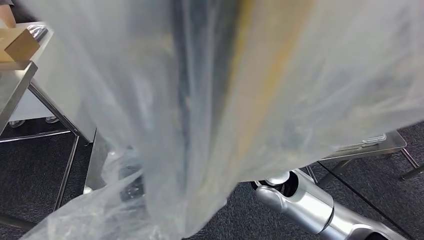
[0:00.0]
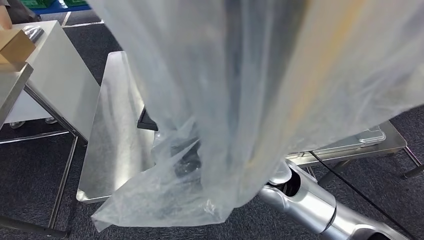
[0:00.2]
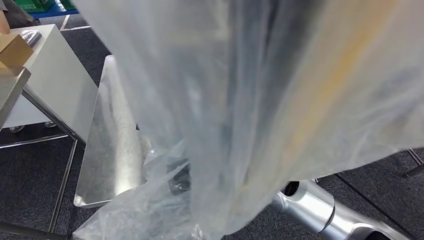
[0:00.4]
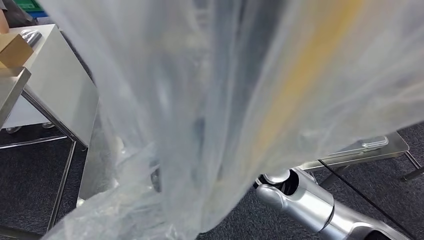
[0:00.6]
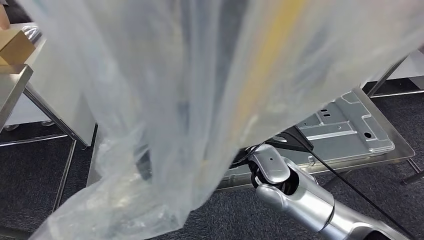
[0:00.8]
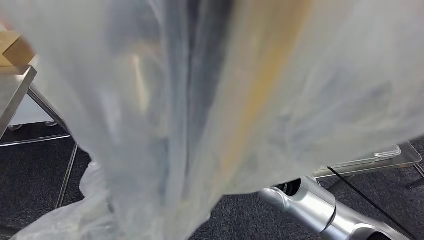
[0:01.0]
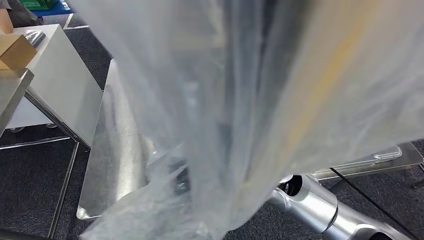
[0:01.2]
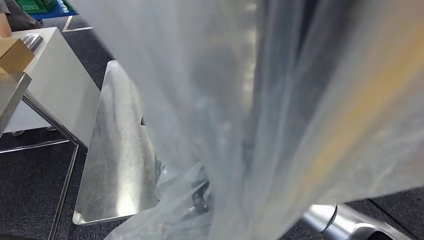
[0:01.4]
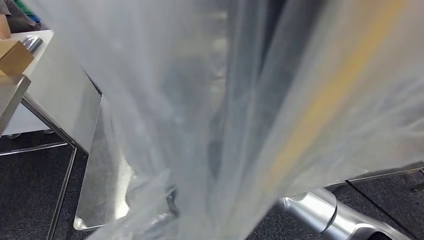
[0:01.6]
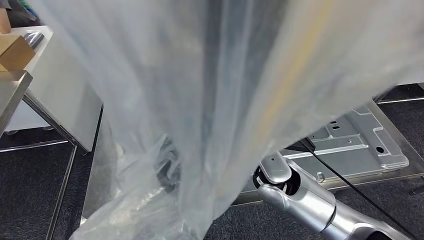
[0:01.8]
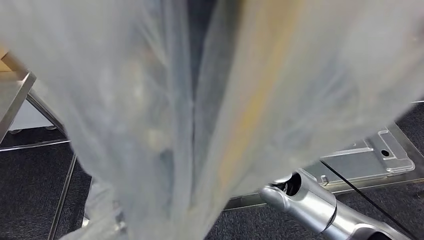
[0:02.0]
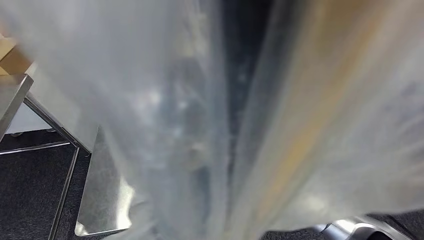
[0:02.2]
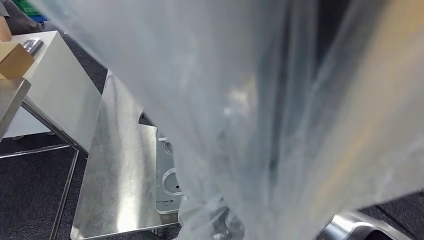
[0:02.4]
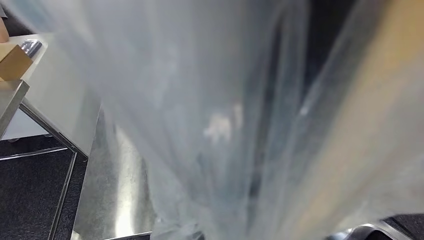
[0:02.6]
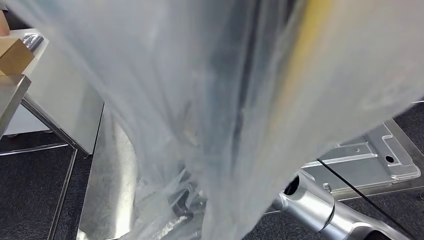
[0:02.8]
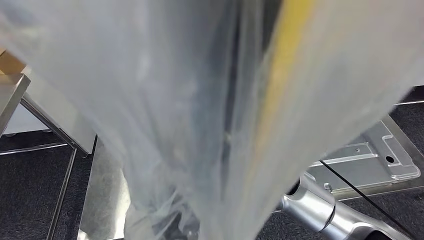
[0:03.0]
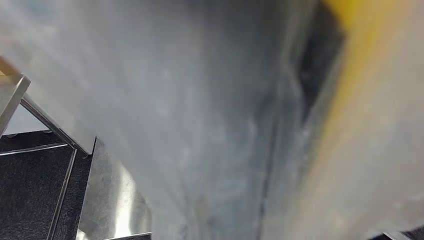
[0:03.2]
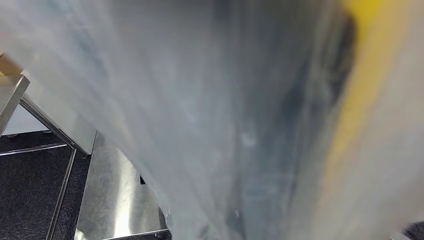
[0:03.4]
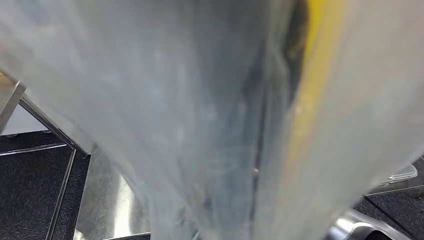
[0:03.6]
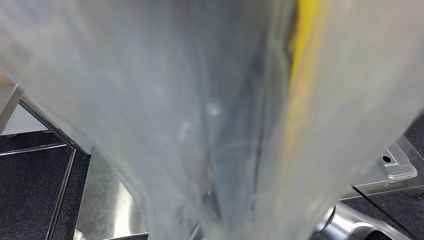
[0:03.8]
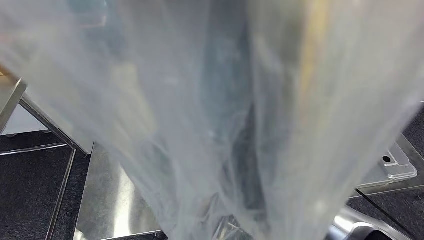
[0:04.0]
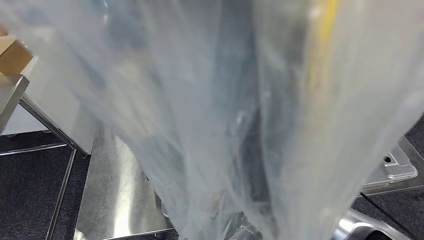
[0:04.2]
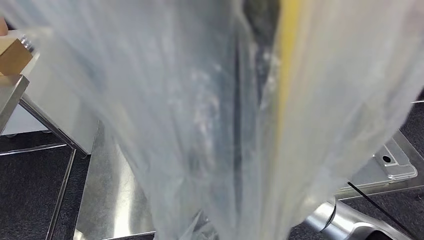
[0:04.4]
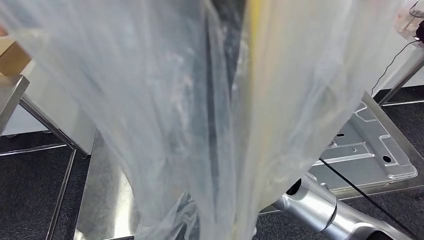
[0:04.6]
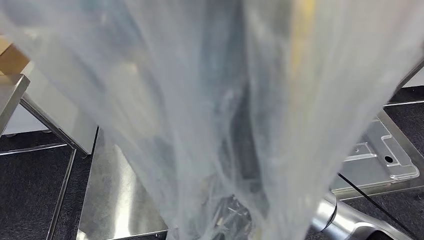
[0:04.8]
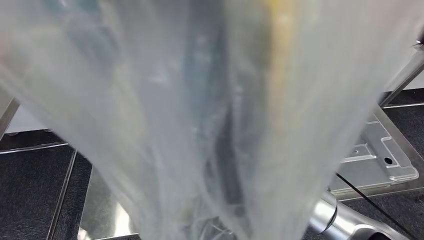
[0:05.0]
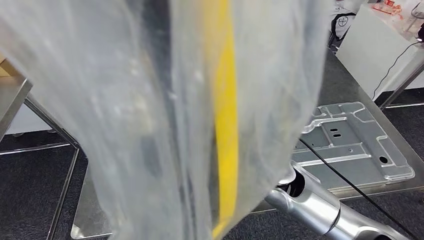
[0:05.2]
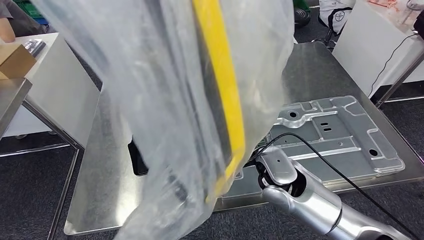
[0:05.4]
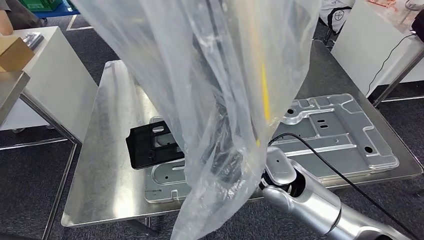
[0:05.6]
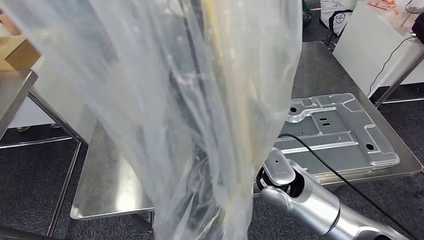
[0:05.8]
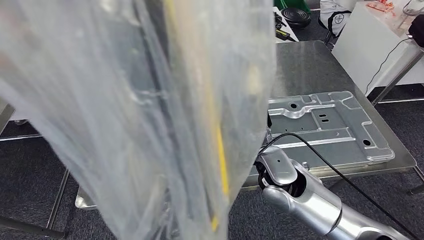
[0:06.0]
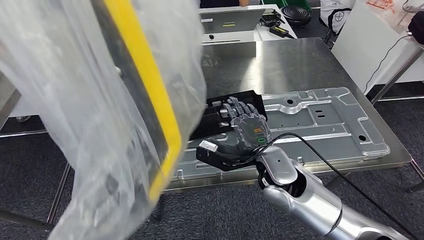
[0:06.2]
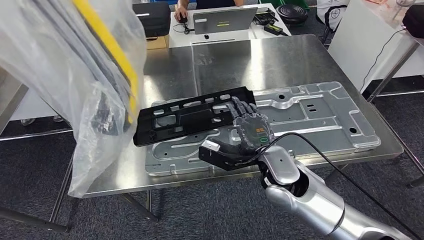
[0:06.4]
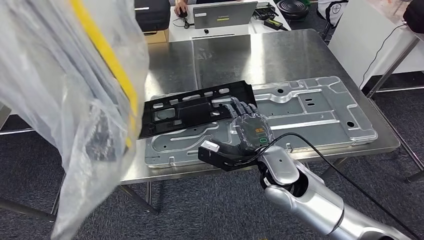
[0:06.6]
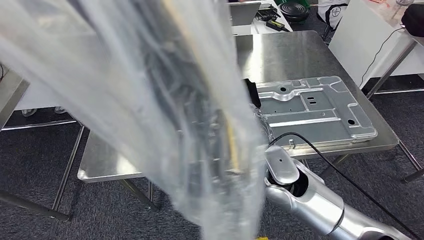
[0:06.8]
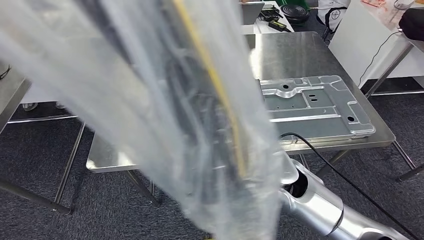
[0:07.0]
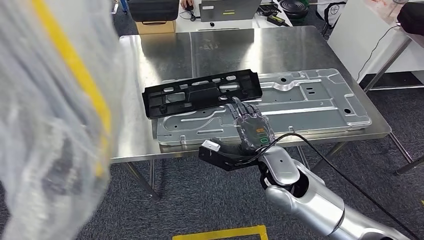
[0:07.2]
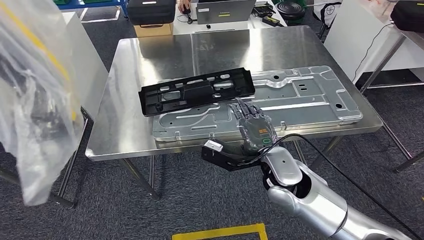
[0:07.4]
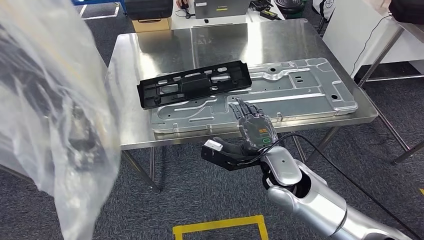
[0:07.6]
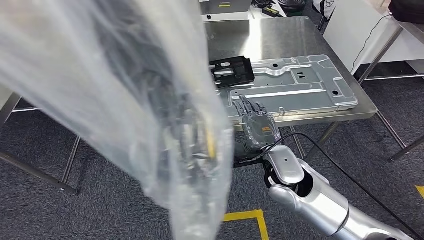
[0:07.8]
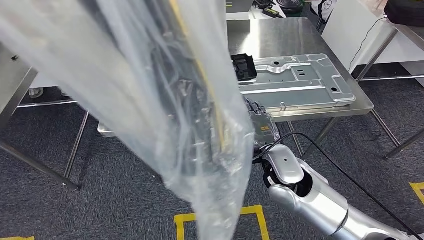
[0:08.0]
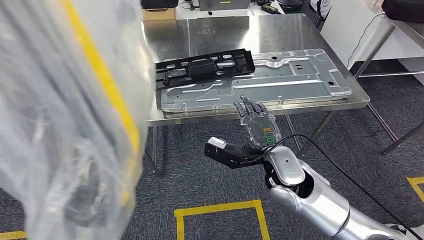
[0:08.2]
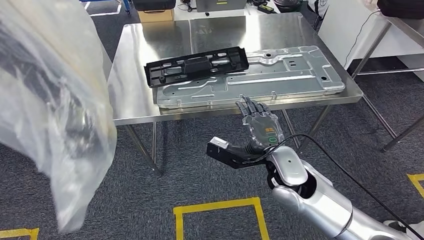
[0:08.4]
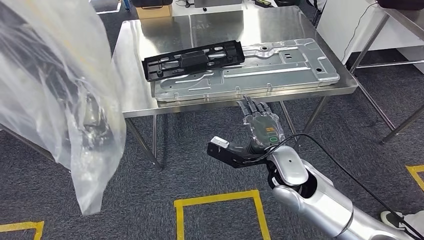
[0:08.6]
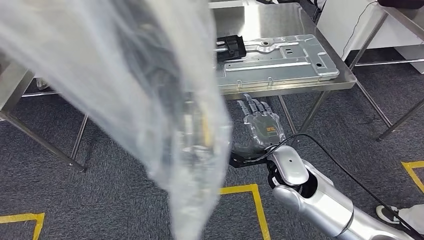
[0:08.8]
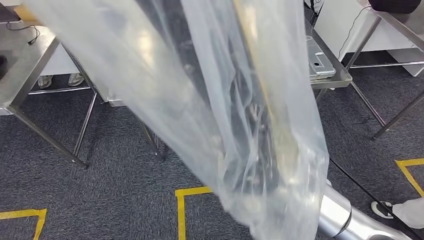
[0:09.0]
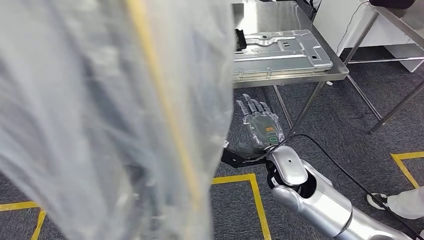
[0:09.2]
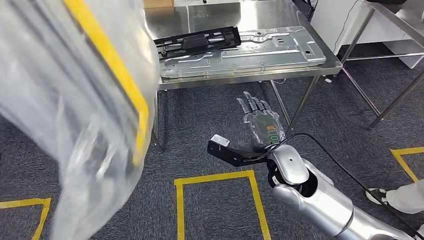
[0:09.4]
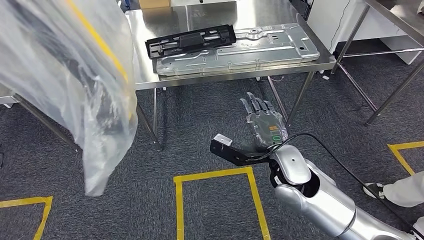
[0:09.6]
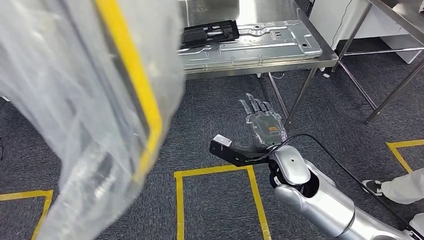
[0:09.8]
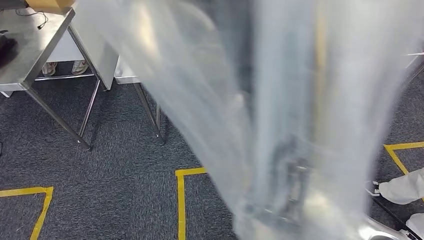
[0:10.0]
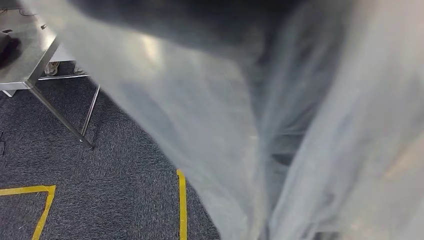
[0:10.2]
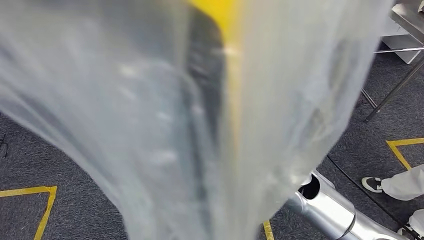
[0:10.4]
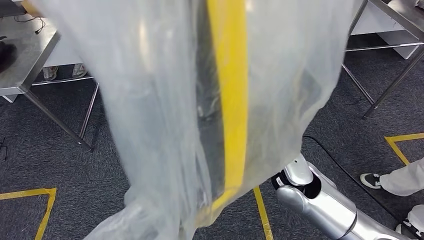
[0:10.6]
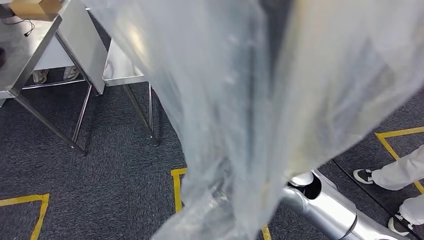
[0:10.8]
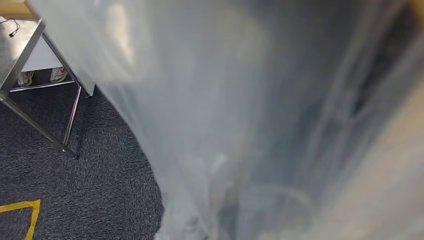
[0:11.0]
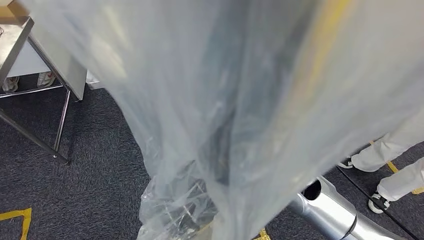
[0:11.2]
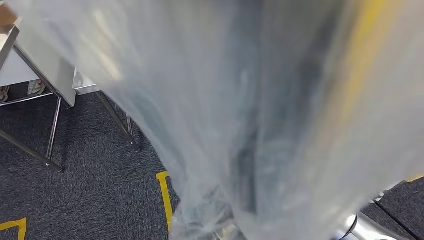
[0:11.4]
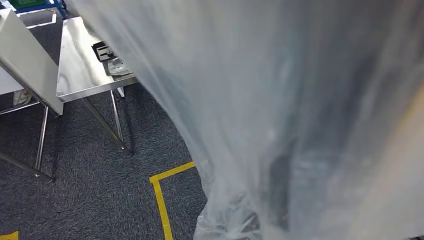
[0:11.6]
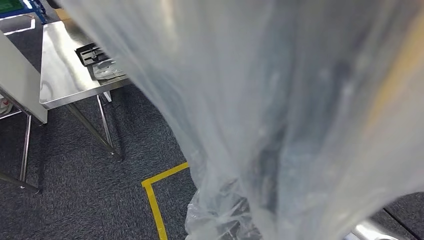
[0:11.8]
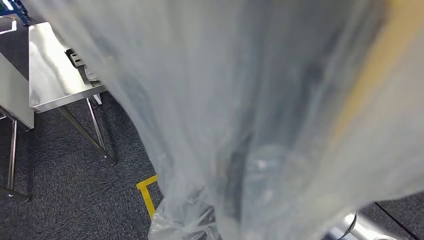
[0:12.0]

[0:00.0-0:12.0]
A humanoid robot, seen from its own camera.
Step, 0:00.0 to 0:08.2: Insert the large material into the corresponding slot on the workbench.

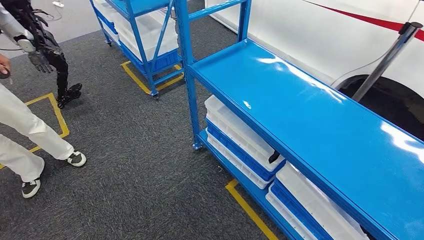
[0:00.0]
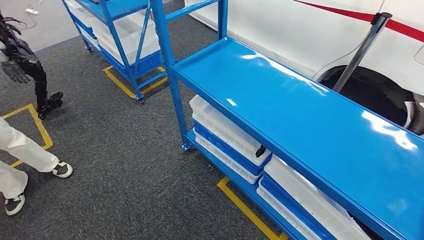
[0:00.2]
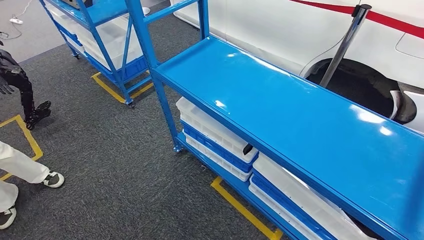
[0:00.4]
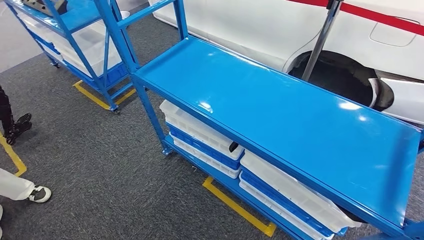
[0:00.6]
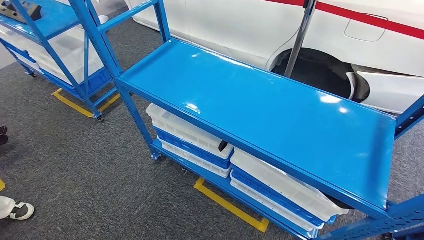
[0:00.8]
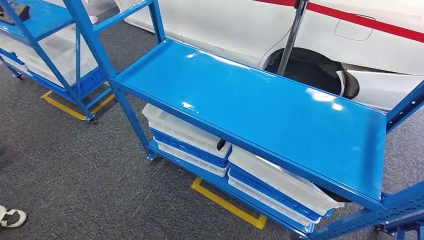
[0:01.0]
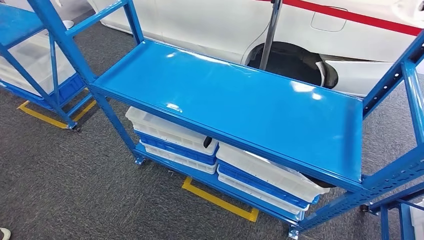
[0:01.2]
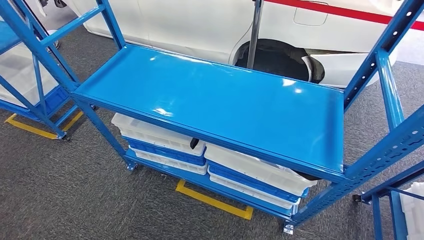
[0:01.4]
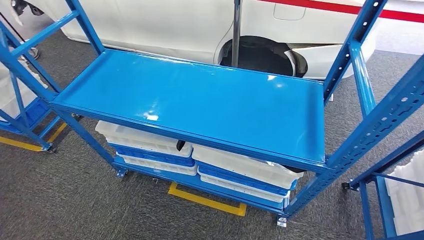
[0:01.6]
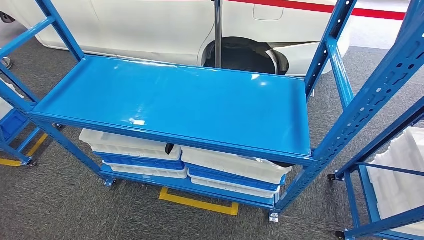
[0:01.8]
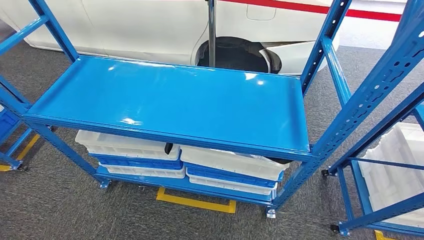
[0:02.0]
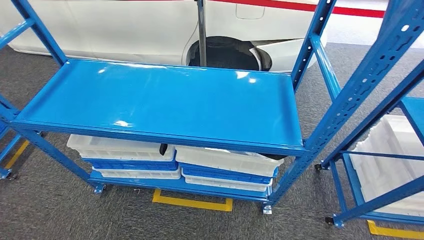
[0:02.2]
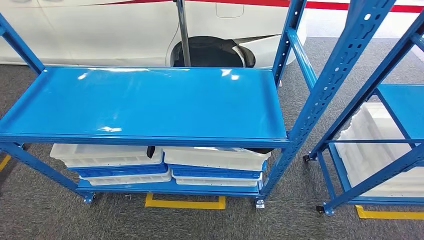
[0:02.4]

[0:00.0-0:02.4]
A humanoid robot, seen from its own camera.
Step, 0:00.0 to 0:02.4: Move to the initial position of the shelf.
